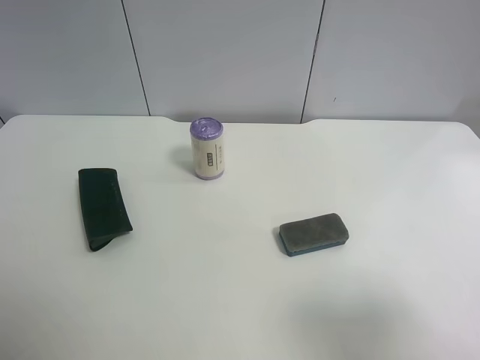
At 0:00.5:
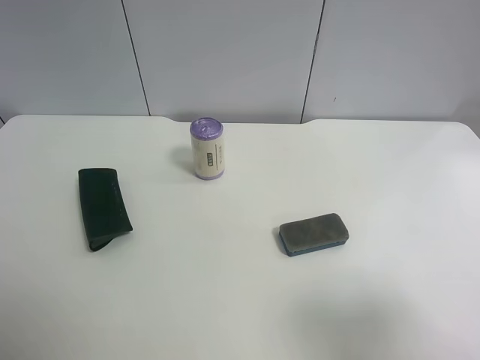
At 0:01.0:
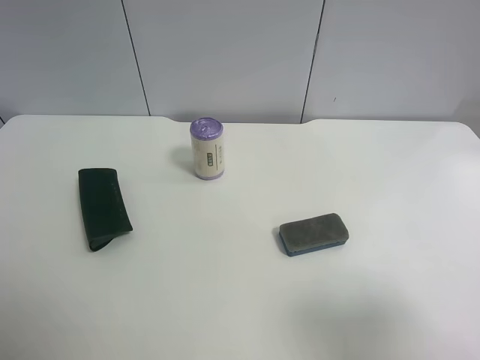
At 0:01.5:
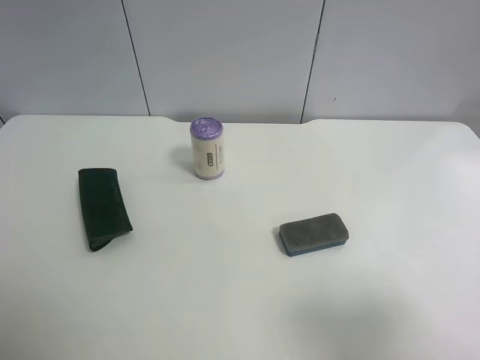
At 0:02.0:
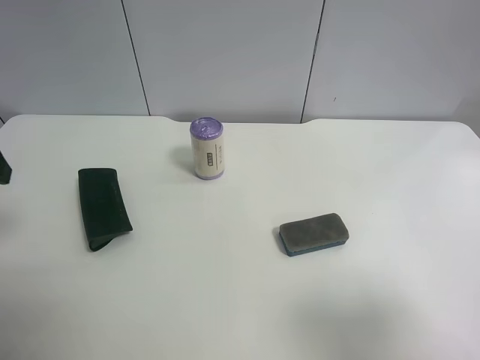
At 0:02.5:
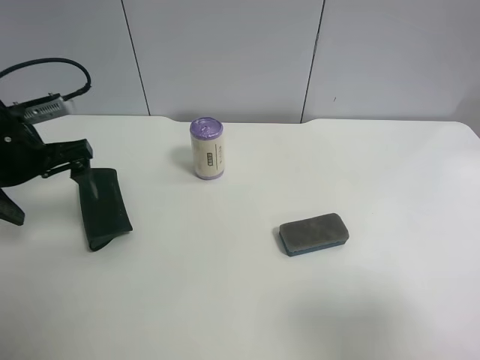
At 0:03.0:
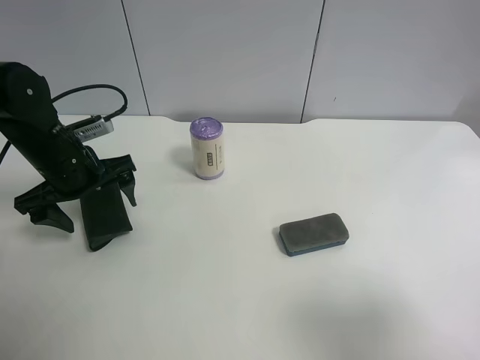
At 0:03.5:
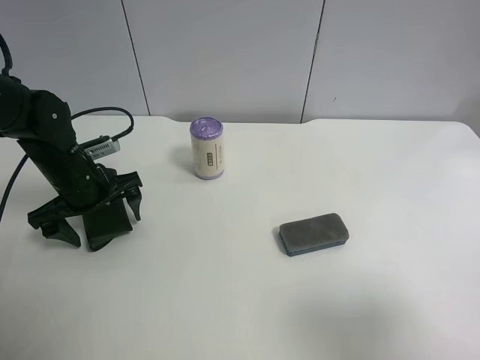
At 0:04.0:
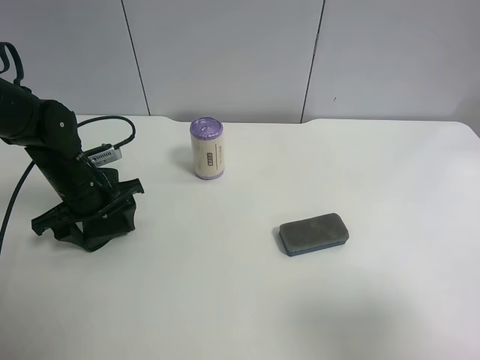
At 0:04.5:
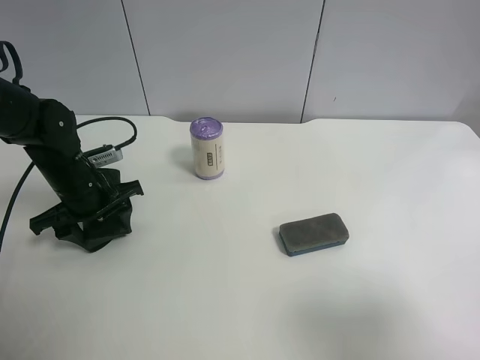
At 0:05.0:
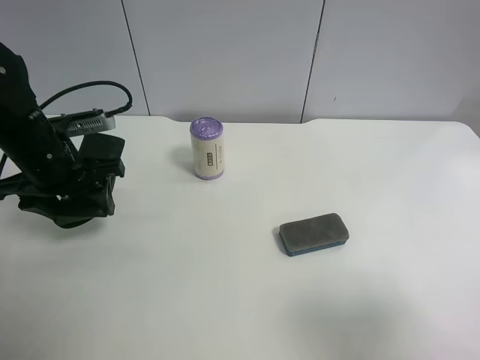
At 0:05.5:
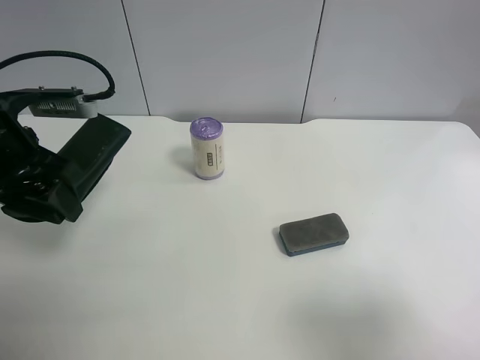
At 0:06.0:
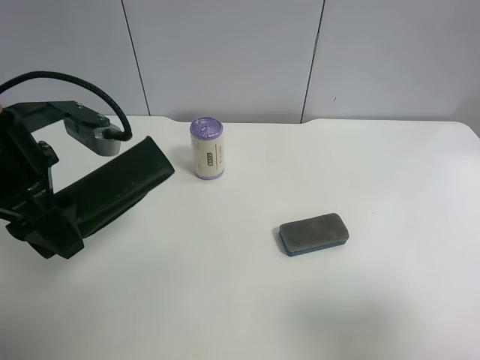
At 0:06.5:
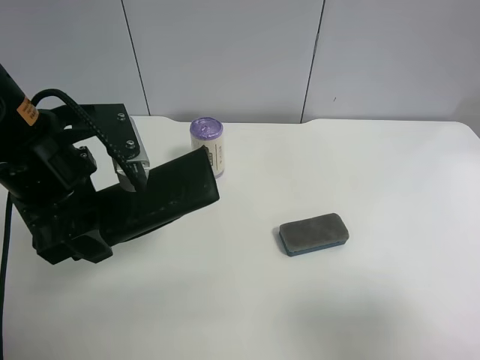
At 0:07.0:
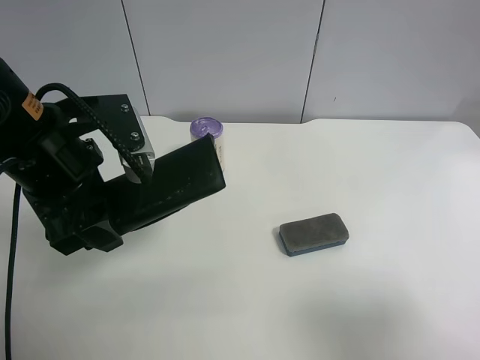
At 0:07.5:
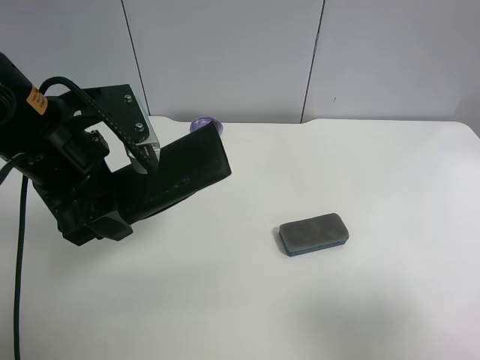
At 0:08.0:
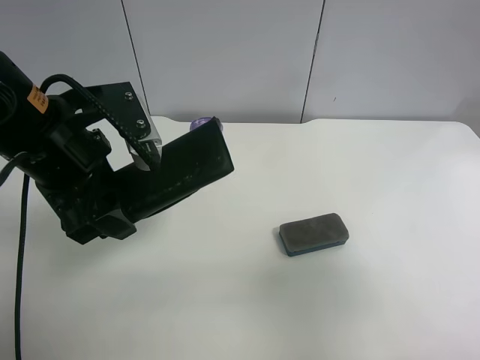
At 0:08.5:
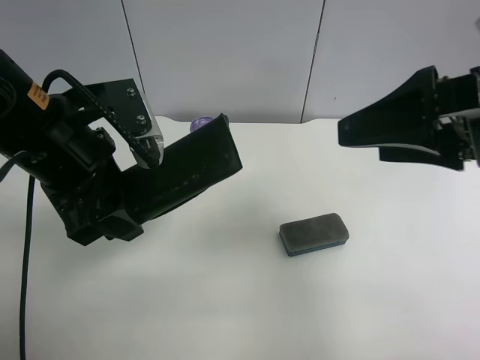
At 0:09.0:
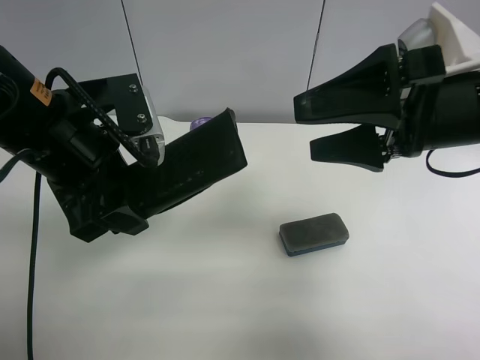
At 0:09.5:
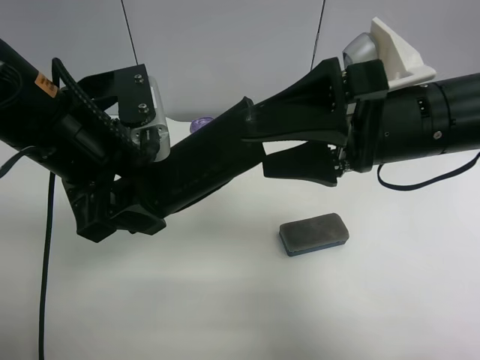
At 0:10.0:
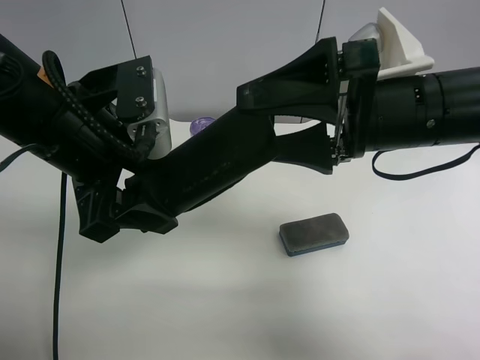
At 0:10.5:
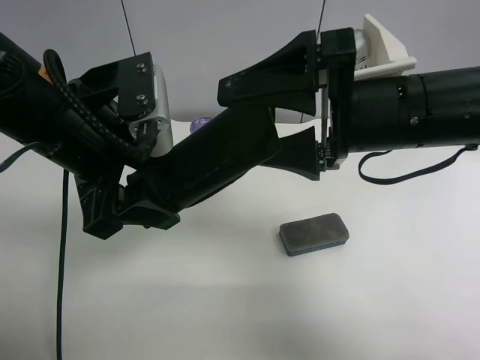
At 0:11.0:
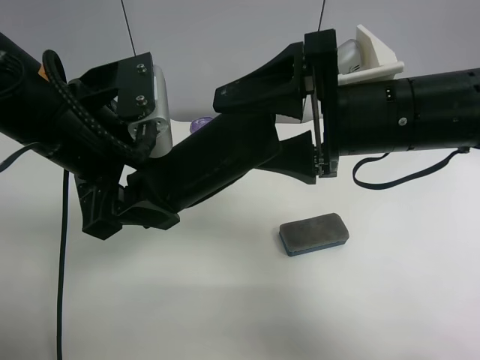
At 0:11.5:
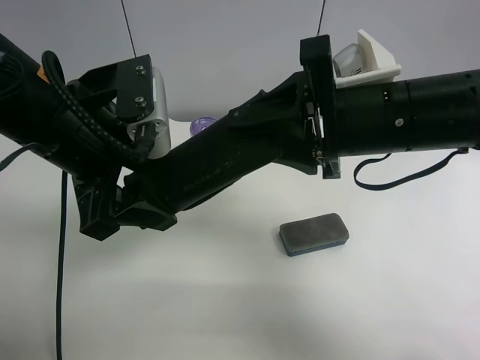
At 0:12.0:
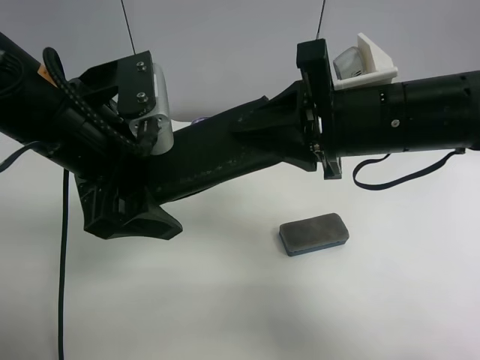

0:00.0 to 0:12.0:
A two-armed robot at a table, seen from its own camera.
Task of the whole recording: use the left gripper to pick up the item and transfer it from the left gripper to the right gripper.
0:02.0 to 0:04.0: The left gripper travels downward and forward by roughly 20 cm, and closes its fingers.
0:04.0 to 0:06.0: The left gripper moves upward and backward, about 20 cm.
0:06.0 to 0:08.0: The right gripper travels forward by roughly 5 cm.
0:08.0 to 0:10.0: The right gripper shifts about 20 cm forward and to the left.
0:10.0 to 0:12.0: The right gripper closes. The left gripper opens its fingers.

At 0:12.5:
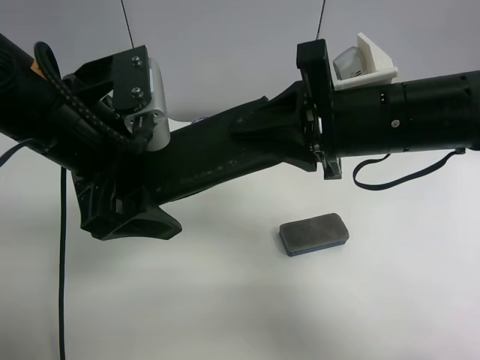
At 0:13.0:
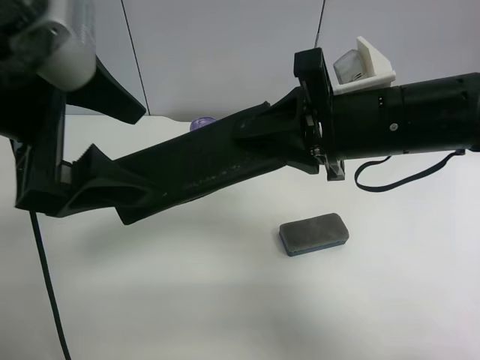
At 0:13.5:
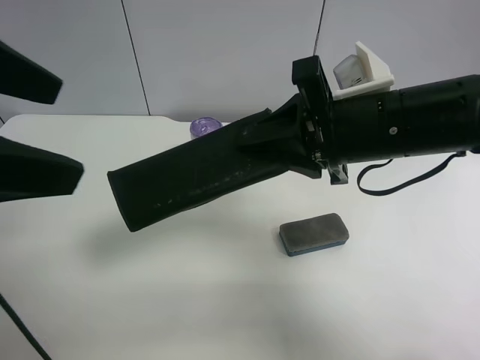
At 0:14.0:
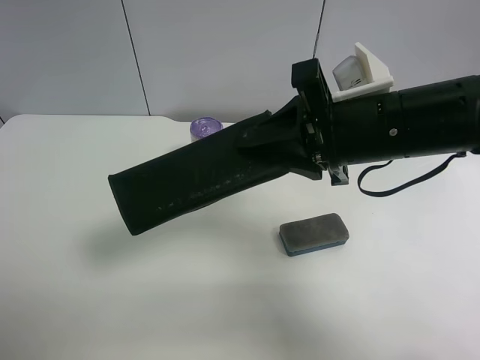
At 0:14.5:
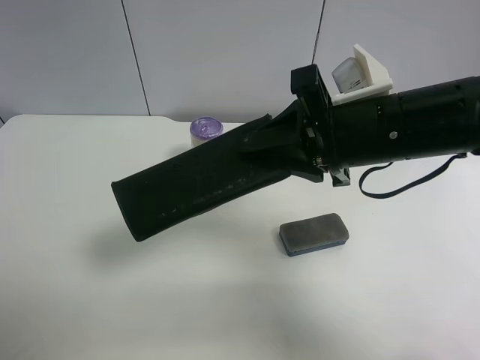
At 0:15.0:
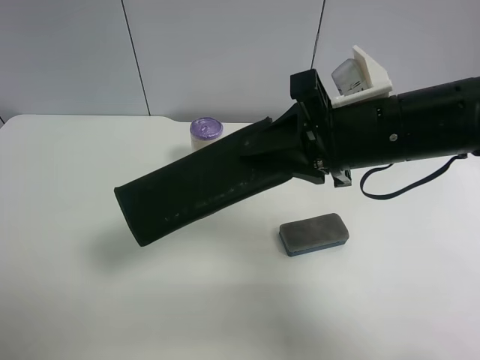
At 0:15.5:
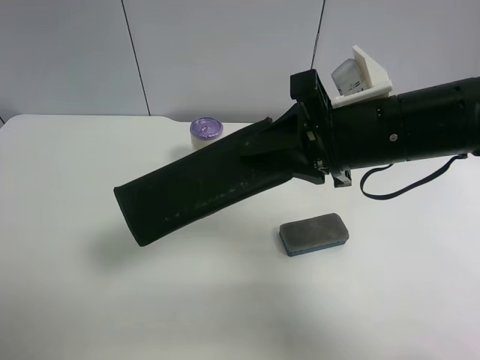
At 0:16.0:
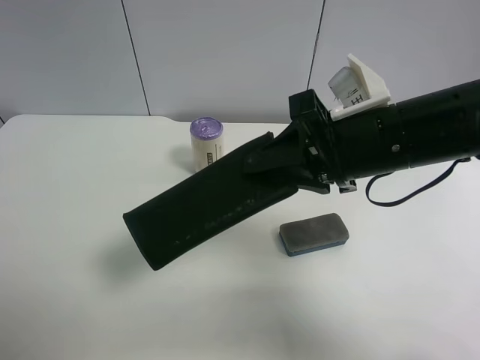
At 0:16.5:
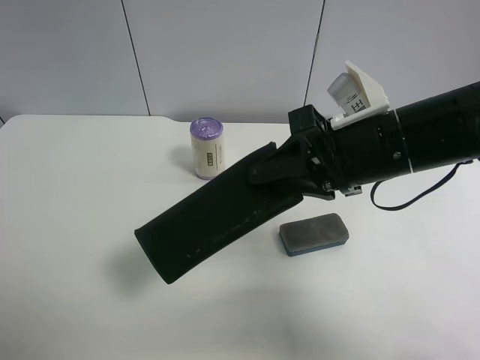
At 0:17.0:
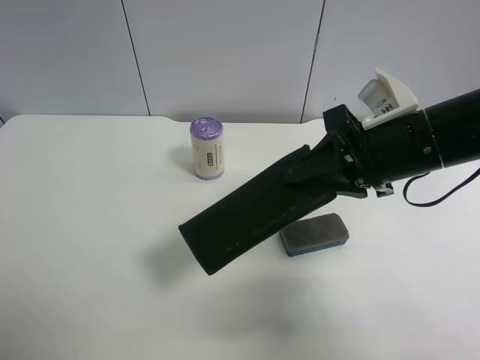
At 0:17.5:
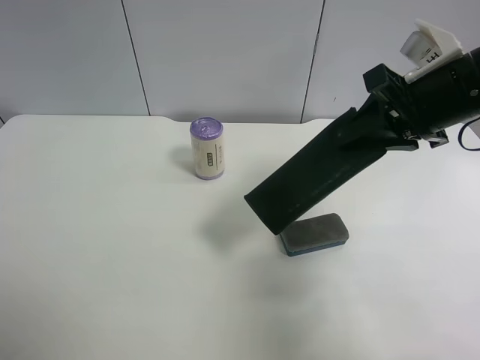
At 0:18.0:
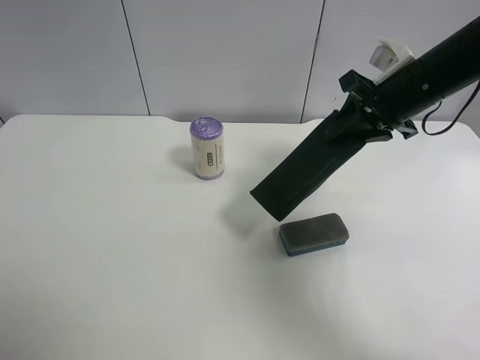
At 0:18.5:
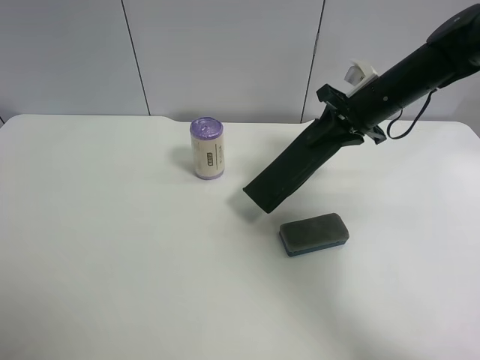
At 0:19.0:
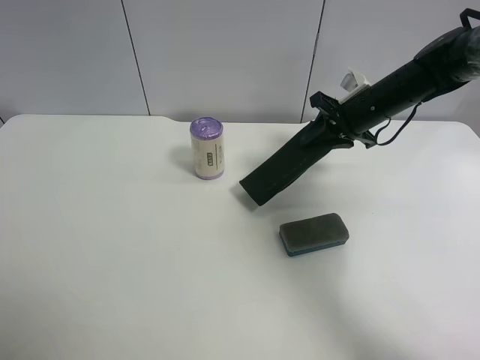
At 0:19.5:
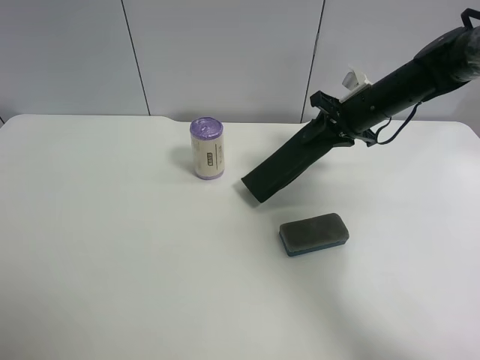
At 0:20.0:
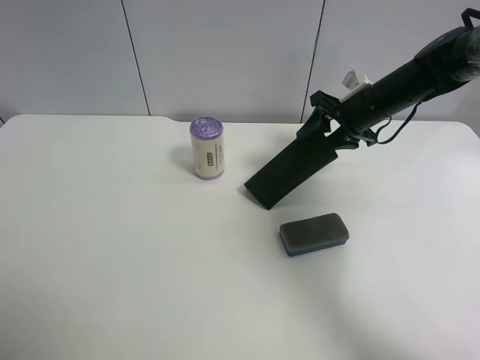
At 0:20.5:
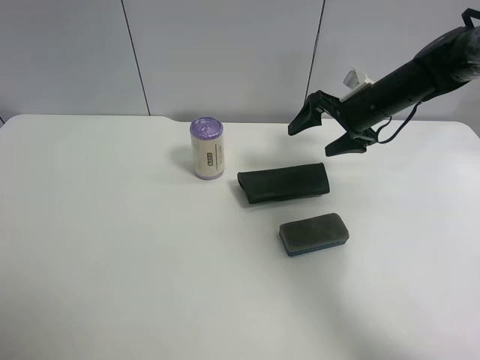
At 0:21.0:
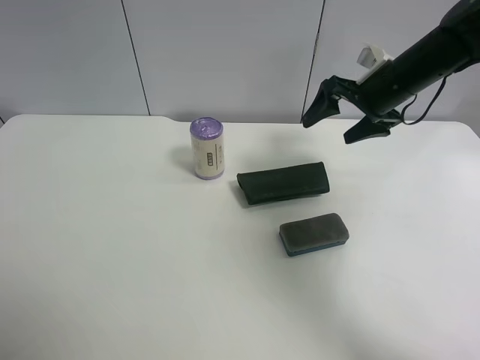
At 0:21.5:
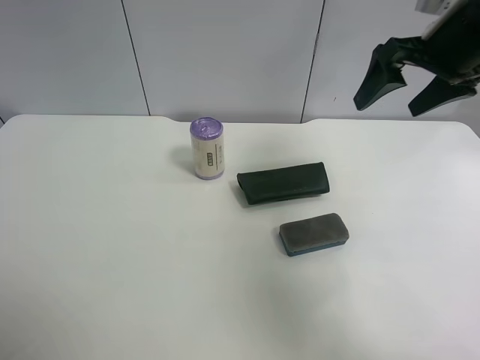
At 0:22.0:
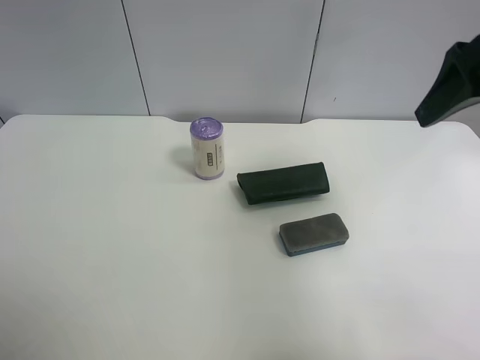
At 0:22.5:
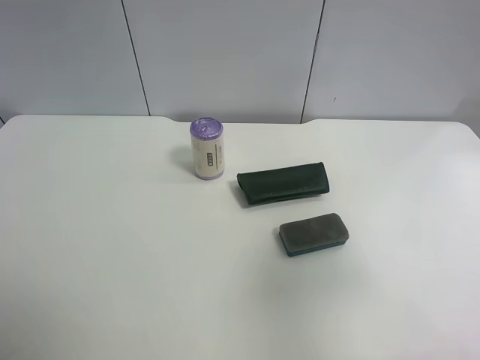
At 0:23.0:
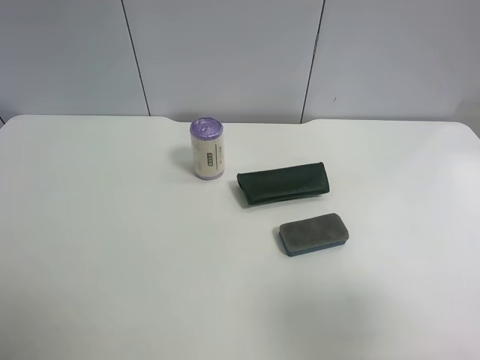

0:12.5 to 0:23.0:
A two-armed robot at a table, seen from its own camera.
Task of the whole recording: use the left gripper to pick up the item and transfer it from the left gripper to the right gripper.
0:12.5 to 0:14.5: The left gripper goes some 25 cm backward and to the left.
0:16.5 to 0:19.0: The right gripper heads forward and to the right, covering roughly 20 cm.
0:19.0 to 0:21.0: The right gripper travels upward by roughly 5 cm, and opens.
0:21.0 to 0:23.0: The right gripper is displaced backward by about 40 cm.

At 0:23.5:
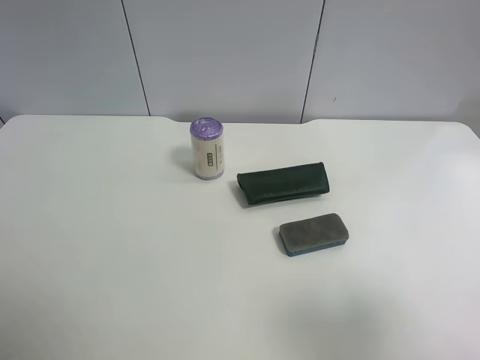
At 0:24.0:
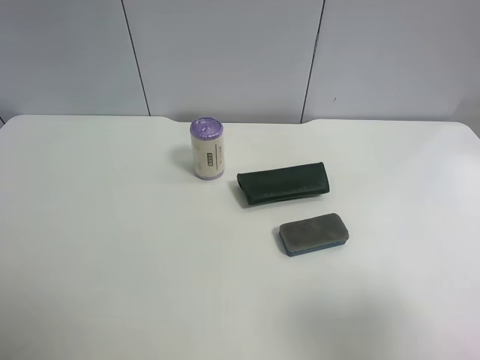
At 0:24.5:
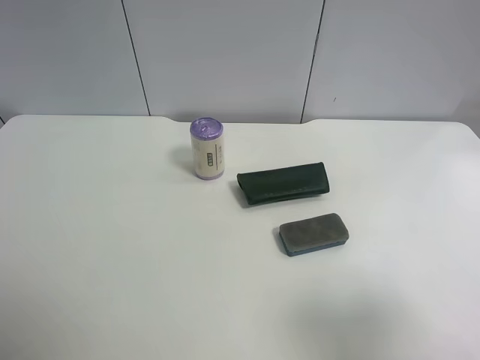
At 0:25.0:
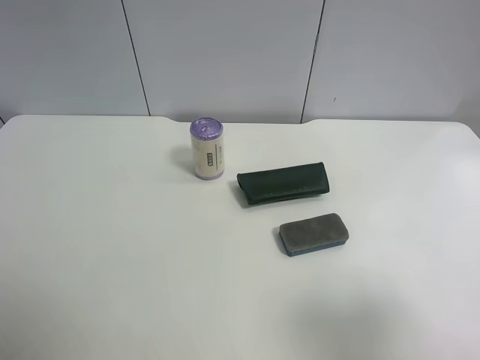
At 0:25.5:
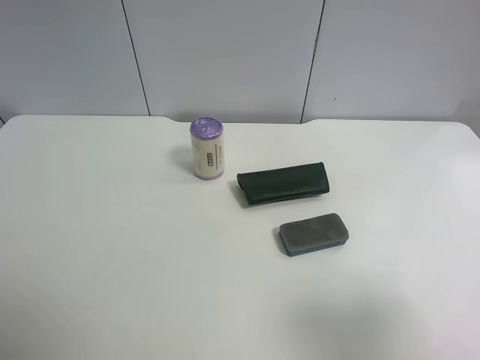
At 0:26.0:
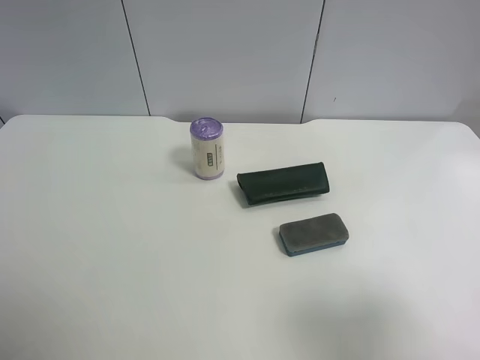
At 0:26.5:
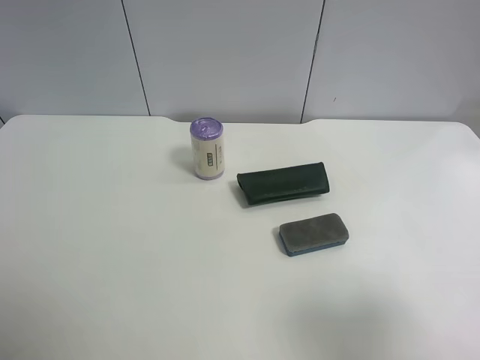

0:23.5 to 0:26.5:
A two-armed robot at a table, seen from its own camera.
Task of the whole recording: use the left gripper to pick up the item and transfer it from the left gripper to the right gripper.
0:25.0 to 0:26.5: Both grippers stay about where they are.
